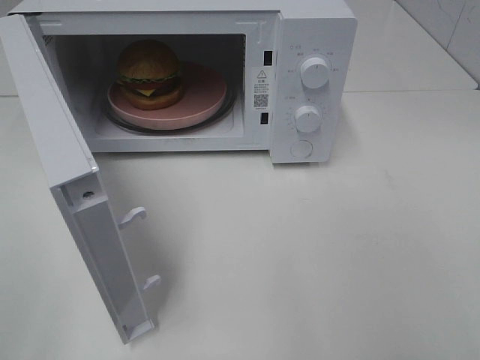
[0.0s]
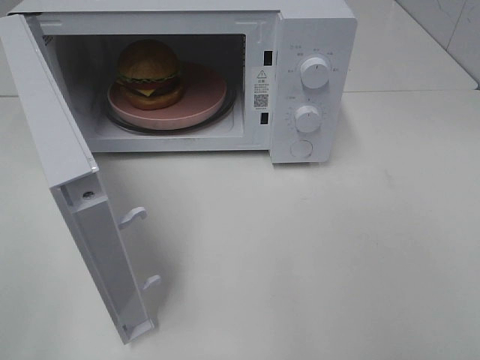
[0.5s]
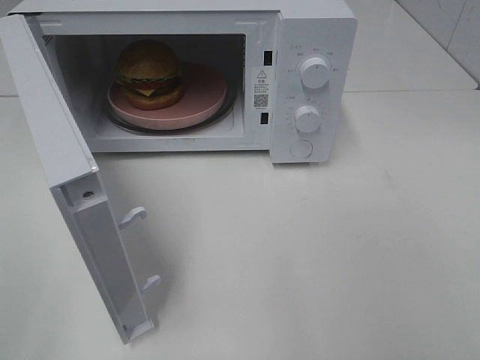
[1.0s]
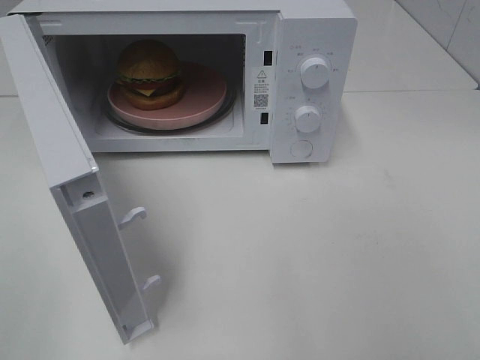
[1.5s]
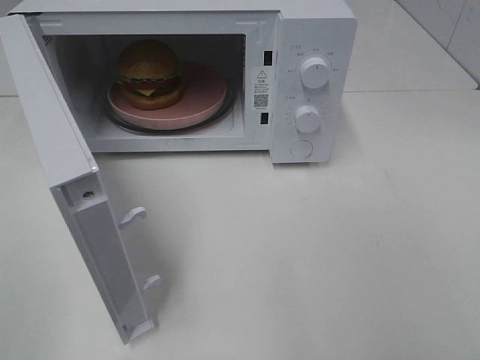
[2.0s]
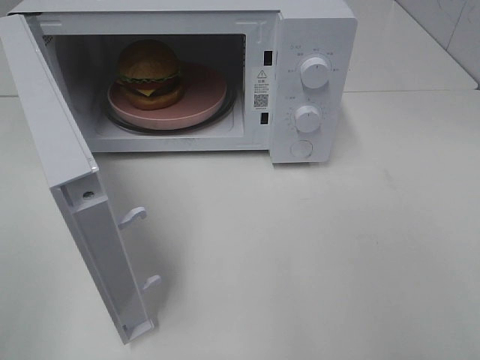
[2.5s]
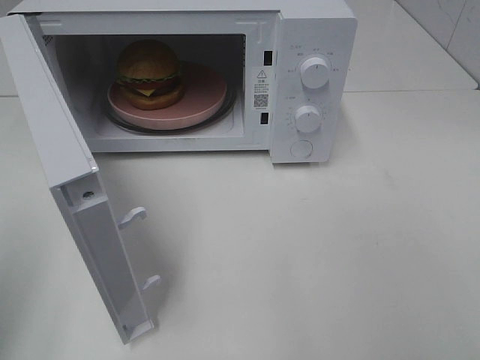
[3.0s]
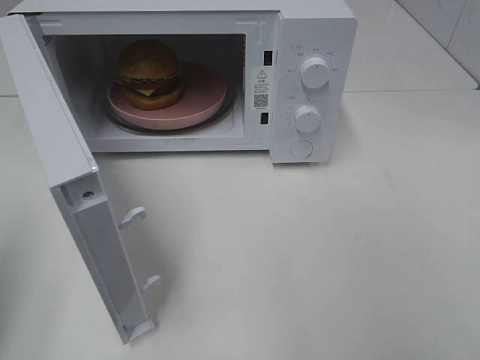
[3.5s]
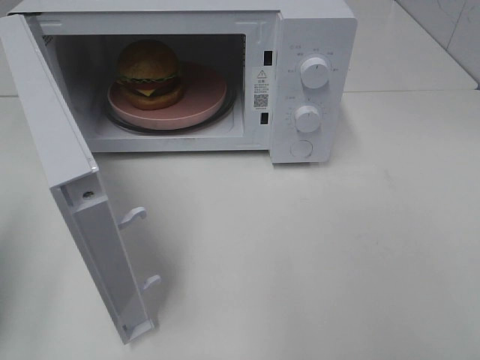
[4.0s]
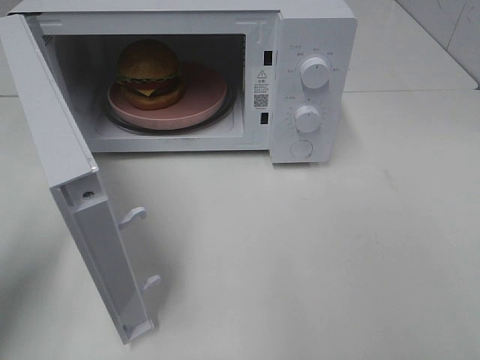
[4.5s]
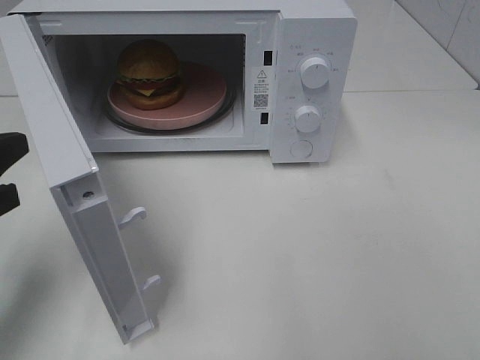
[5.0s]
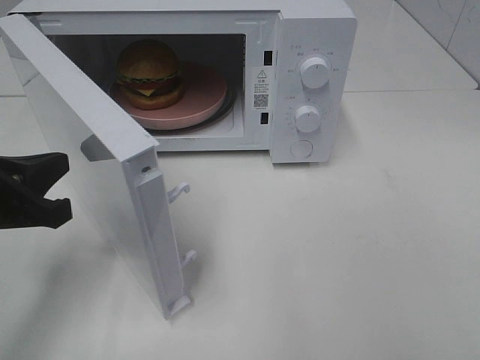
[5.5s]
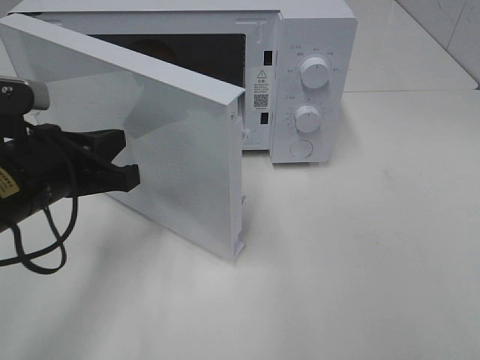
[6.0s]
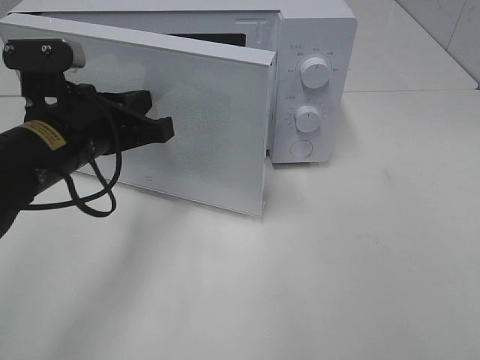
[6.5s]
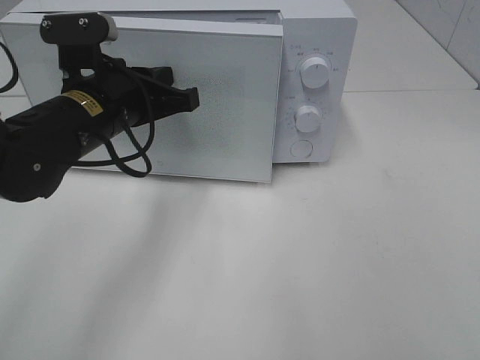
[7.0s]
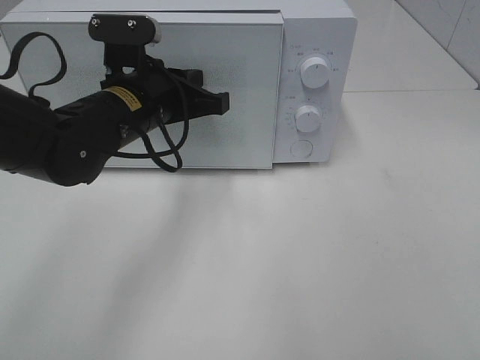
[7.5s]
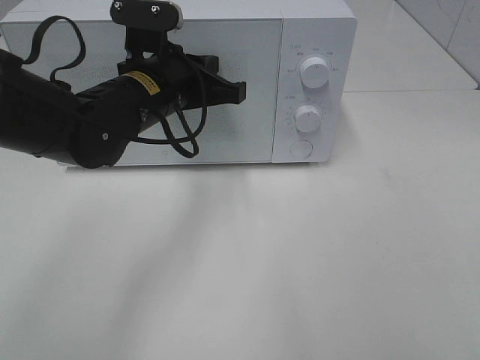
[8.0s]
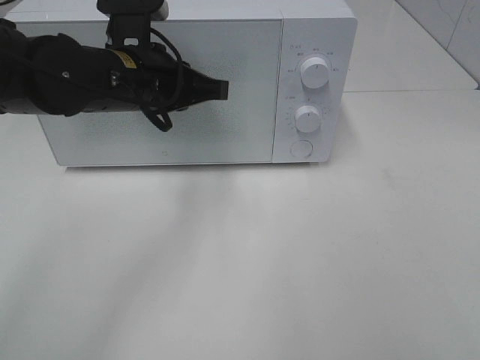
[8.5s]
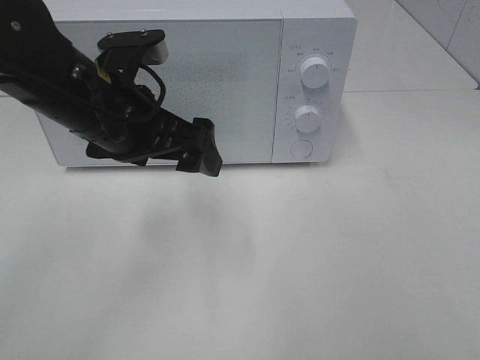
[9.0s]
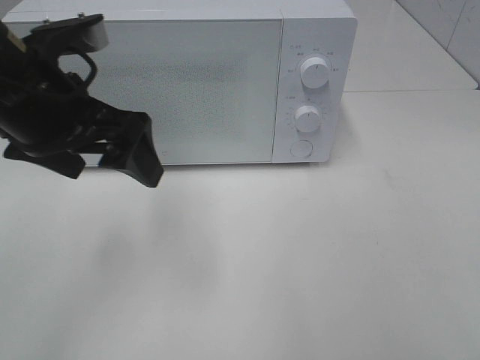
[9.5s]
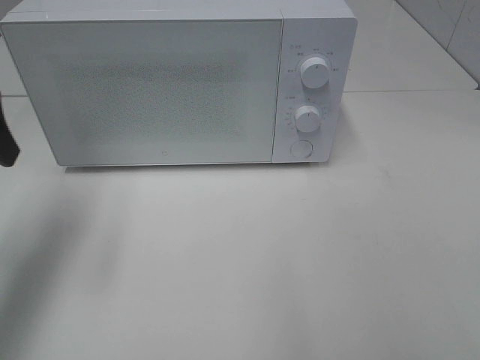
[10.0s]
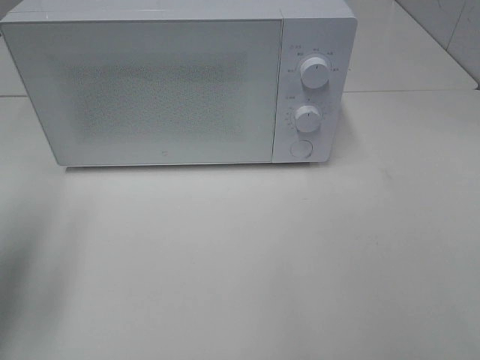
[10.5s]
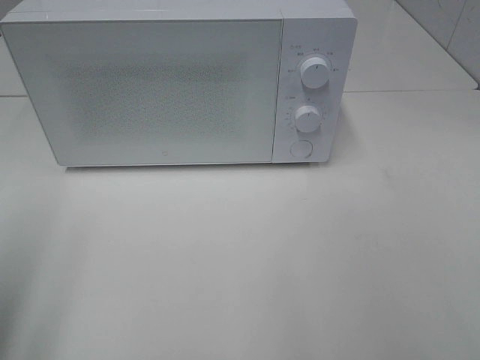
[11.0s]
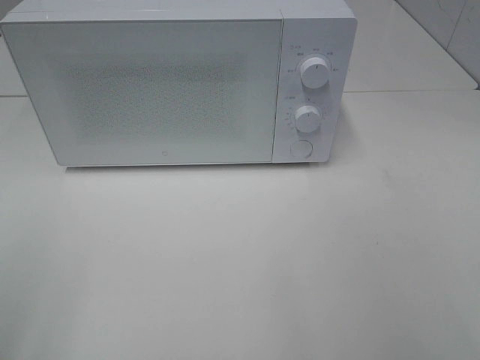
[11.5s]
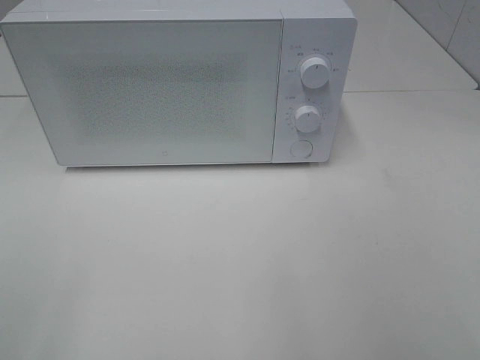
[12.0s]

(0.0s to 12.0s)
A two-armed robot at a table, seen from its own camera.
Task of the whole recording: Heat the burger.
Step, 0.0s - 8.5s: Left hand: close the microwave door.
0.0s - 2.0s: Neither gripper changes place.
2.0s - 4.0s: The left gripper travels forward by roughly 15 cm, and closes its fingers.
4.0s - 6.0s: The left gripper goes some 20 cm to the right, forward and downward.
6.0s - 8.0s: The left gripper heads forward and to the right, covering approximately 15 cm.
8.0s - 10.0s: The left gripper moves to the left, upward and backward, approximately 25 cm, and opens up.
10.0s - 12.0s: The left gripper moves backward, approximately 25 cm.

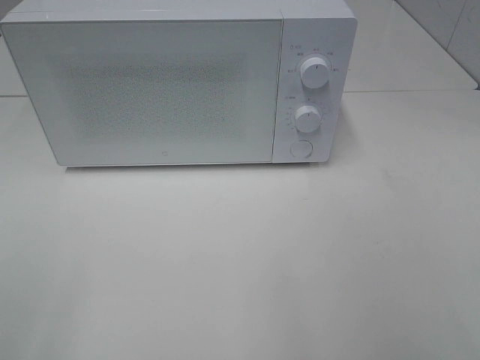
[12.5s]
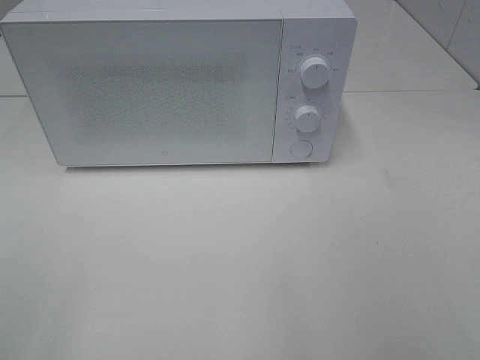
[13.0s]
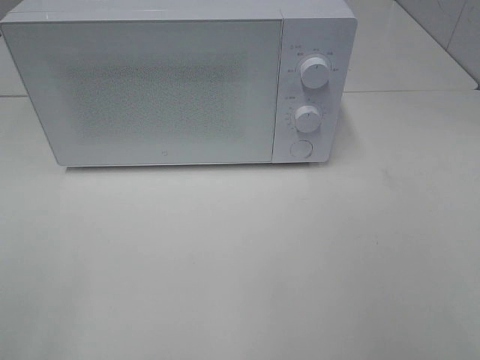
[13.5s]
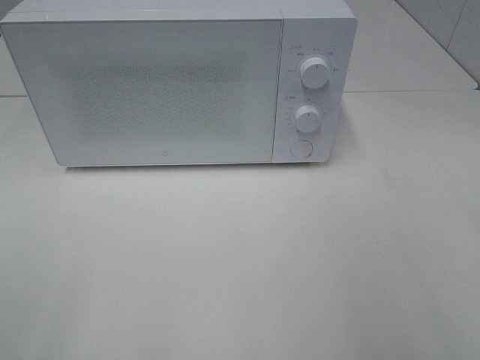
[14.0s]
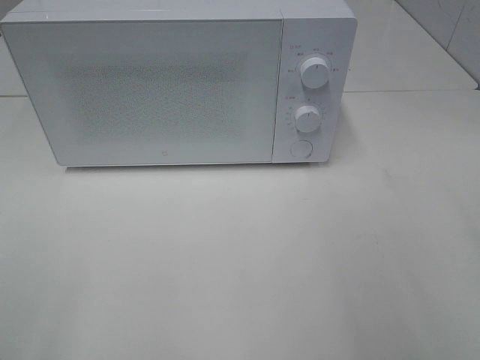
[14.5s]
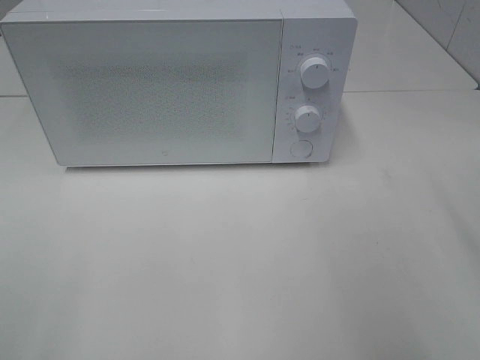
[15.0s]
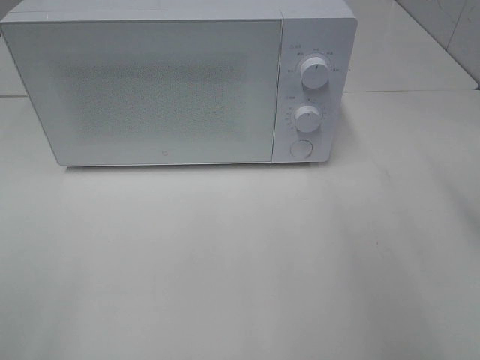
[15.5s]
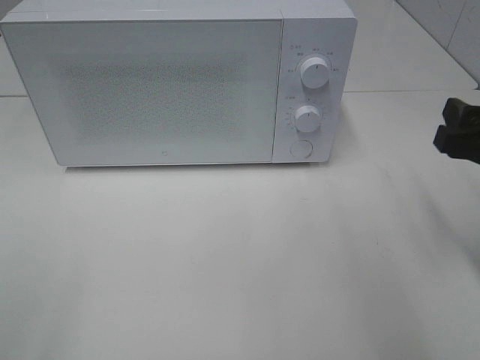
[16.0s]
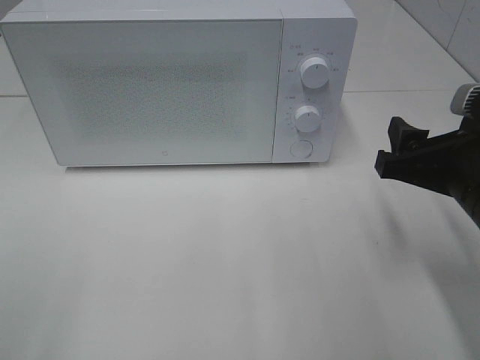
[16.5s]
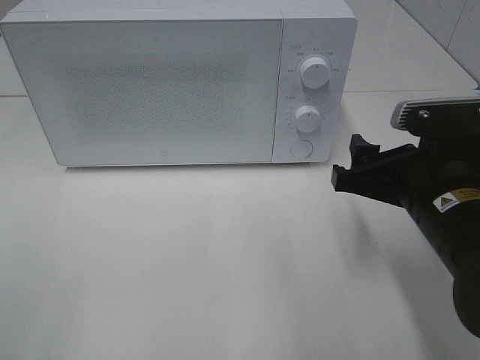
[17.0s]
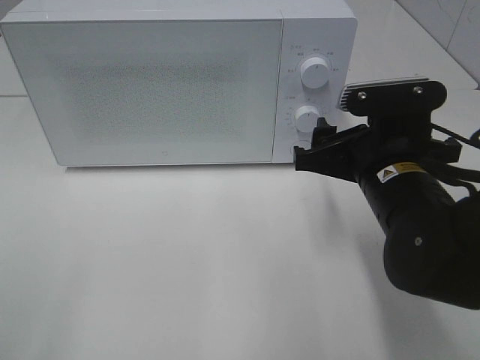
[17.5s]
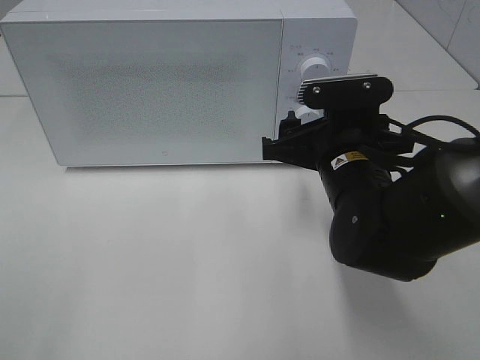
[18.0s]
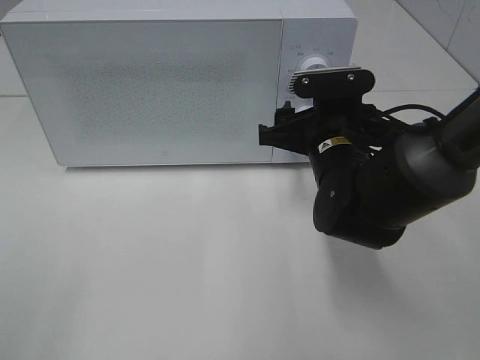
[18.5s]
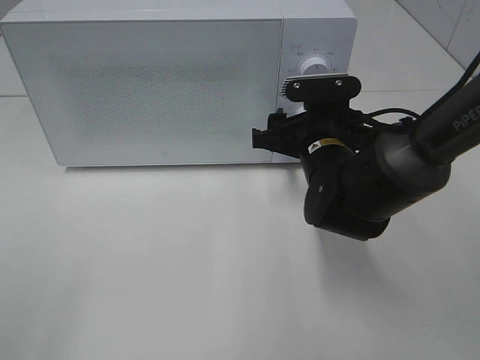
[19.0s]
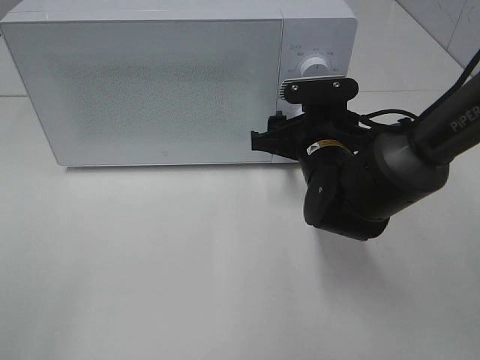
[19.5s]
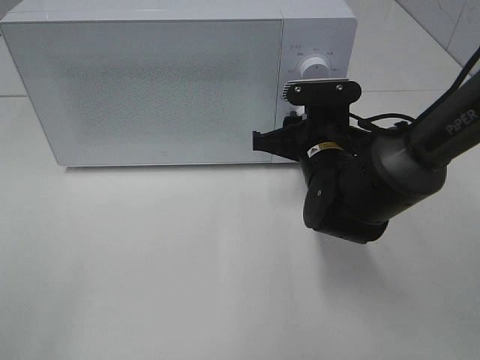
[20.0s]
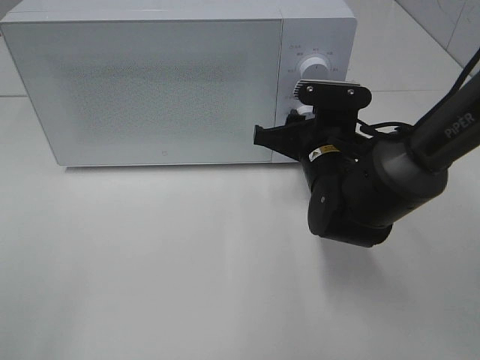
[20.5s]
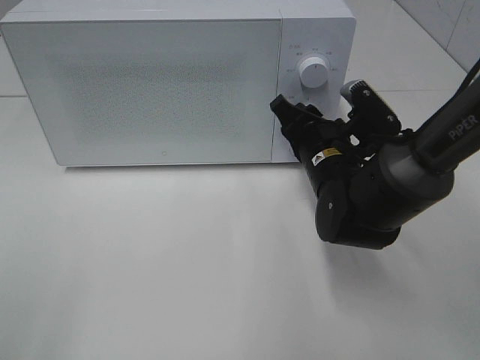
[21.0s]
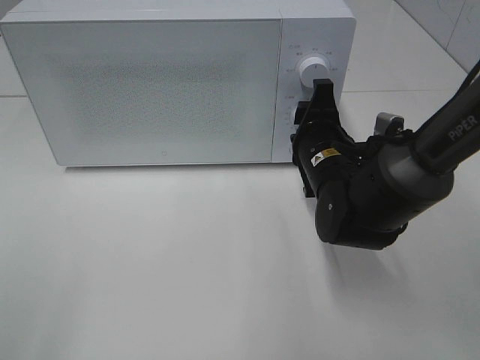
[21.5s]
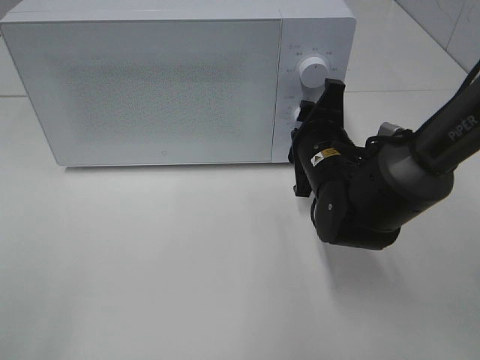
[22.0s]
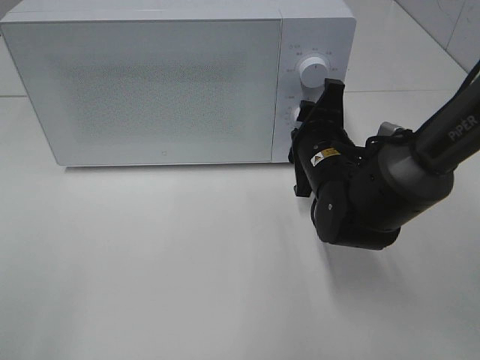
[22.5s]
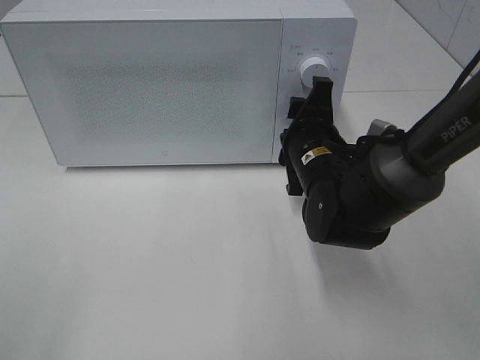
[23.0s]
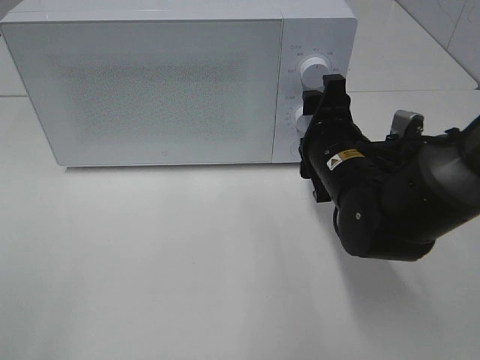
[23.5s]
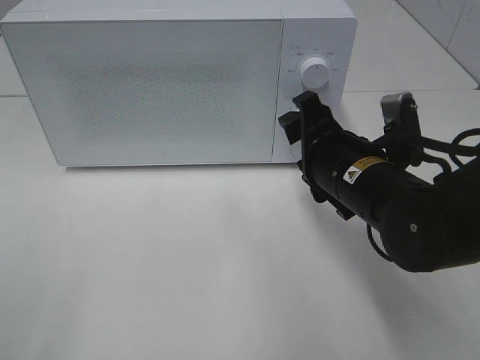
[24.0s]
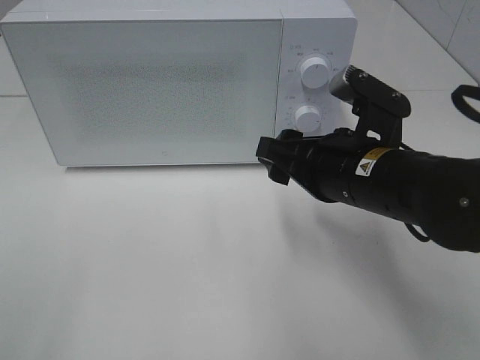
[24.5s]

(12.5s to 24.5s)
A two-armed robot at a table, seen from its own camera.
Task of the whole recording: Heat the burger.
Step, 12.5s - 23.0s: Right hand: twist timer button.
14.5s - 16.5s: The right gripper travels downward, forward and to the left by approximately 15 cm.
16.5s - 18.5s: The right gripper heads forward and to the left, covering roughly 15 cm.
18.5s - 20.5s: The right gripper closes its fingers.
22.5s - 24.5s: The right gripper is displaced backward and upward by about 10 cm.

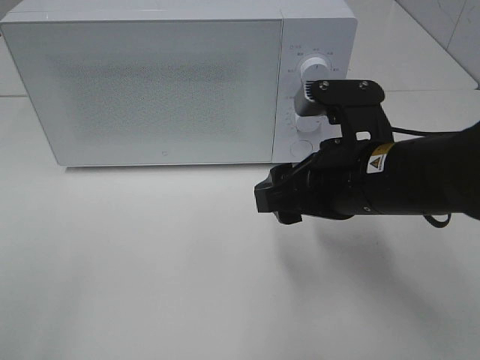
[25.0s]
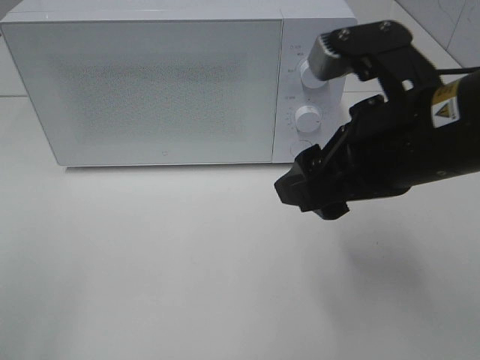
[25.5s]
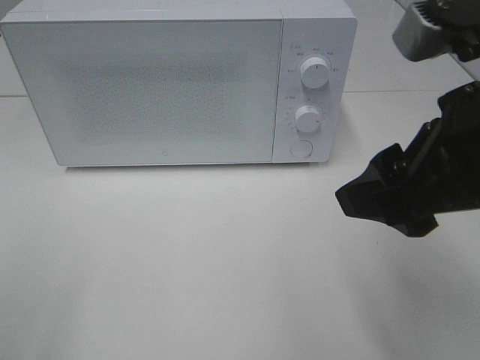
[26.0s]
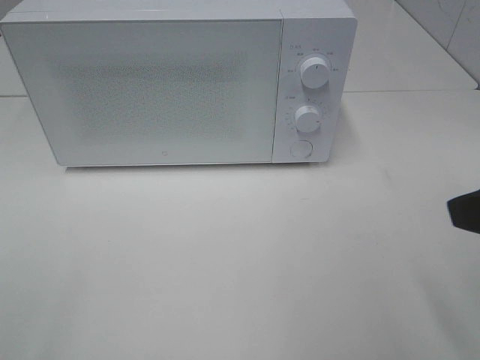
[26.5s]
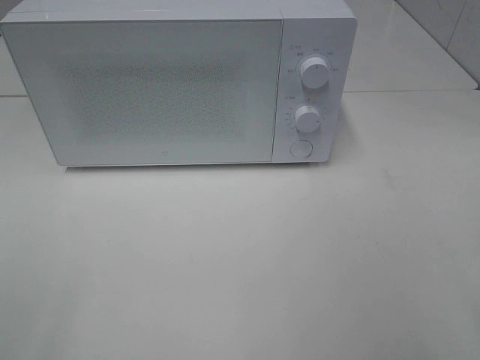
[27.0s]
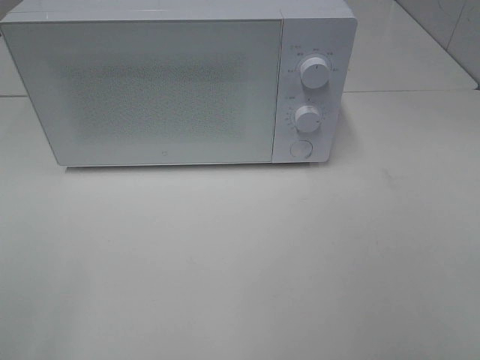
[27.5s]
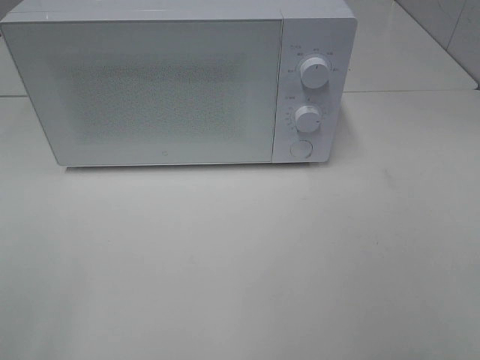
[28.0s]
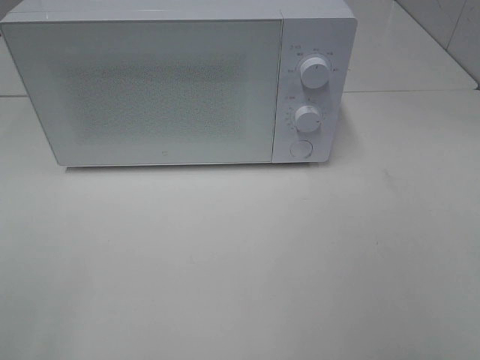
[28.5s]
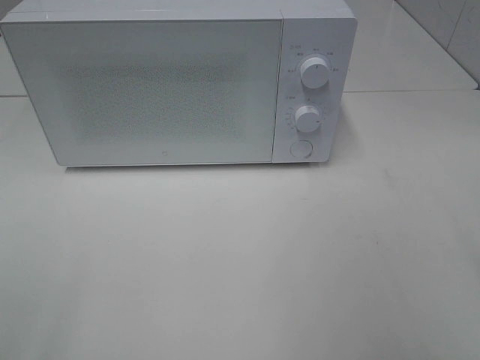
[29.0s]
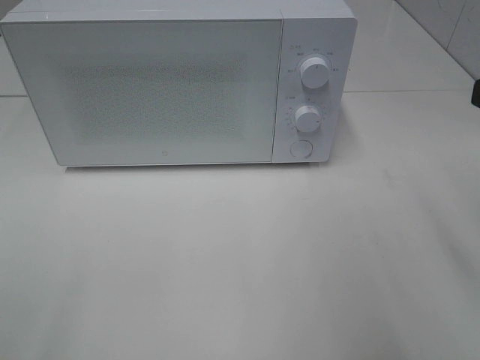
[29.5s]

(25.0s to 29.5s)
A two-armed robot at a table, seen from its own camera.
Task of the whole recording: Heat the burger.
25.0s - 27.0s: The right gripper heads backward, to the right and upward, covering approximately 25 cm.
